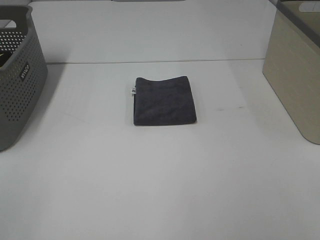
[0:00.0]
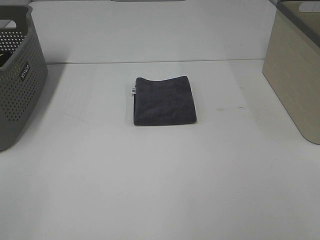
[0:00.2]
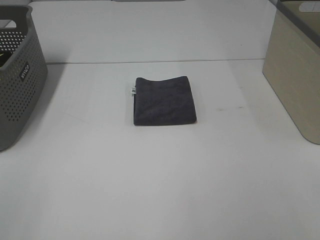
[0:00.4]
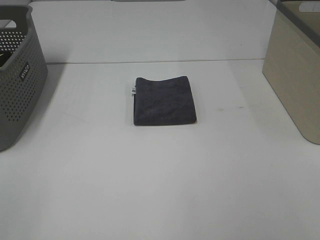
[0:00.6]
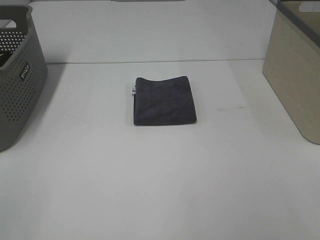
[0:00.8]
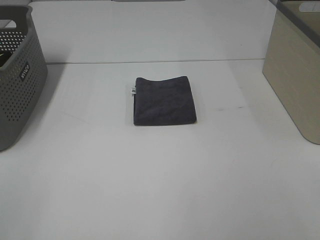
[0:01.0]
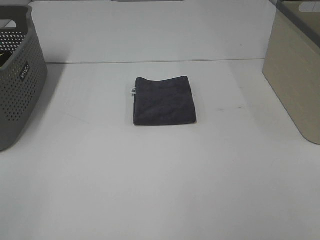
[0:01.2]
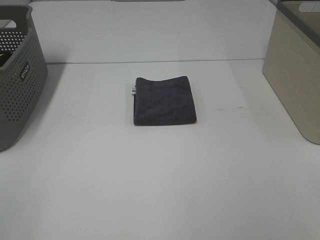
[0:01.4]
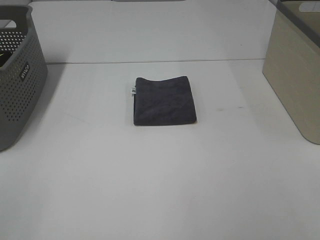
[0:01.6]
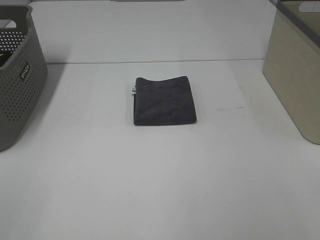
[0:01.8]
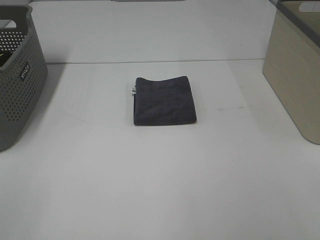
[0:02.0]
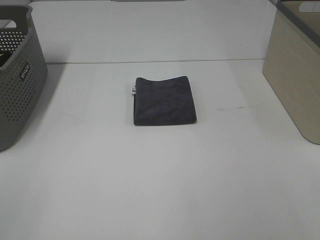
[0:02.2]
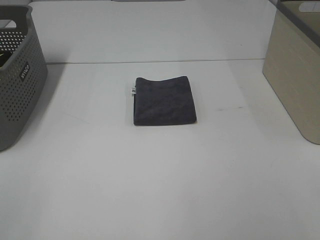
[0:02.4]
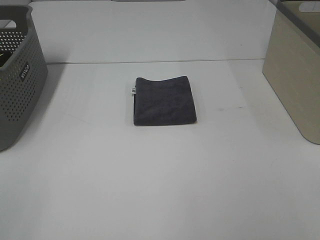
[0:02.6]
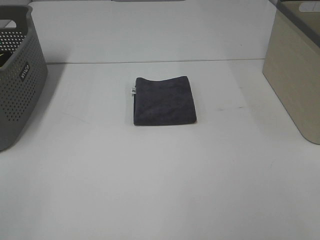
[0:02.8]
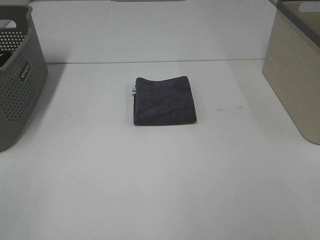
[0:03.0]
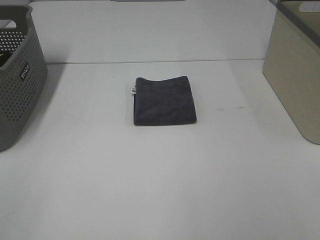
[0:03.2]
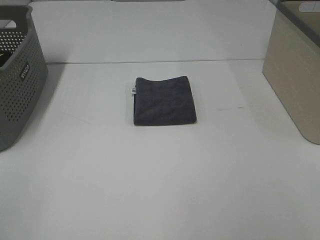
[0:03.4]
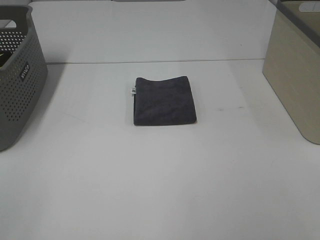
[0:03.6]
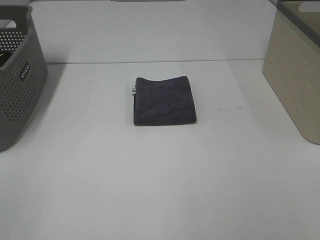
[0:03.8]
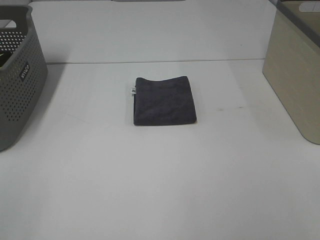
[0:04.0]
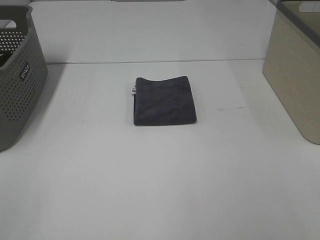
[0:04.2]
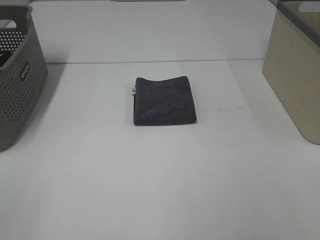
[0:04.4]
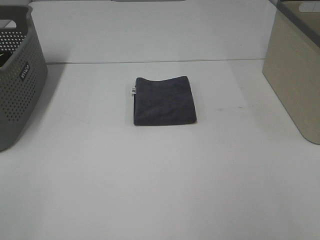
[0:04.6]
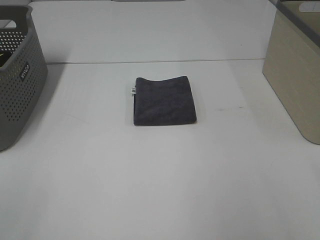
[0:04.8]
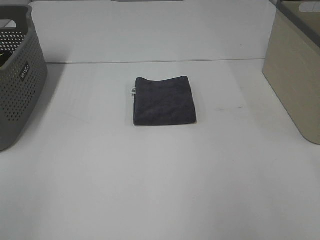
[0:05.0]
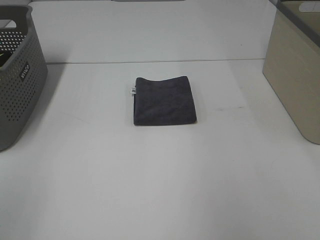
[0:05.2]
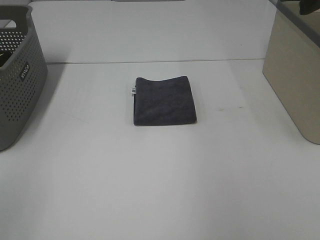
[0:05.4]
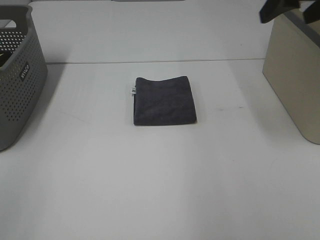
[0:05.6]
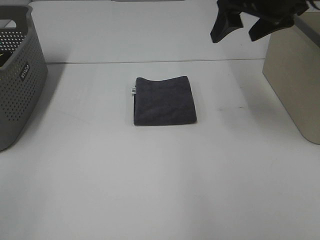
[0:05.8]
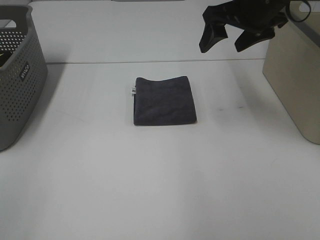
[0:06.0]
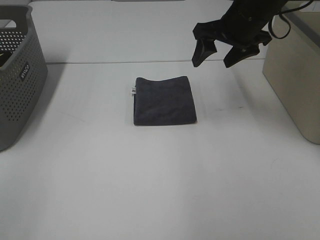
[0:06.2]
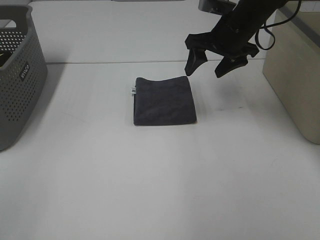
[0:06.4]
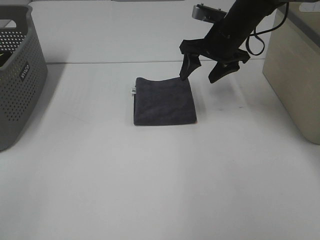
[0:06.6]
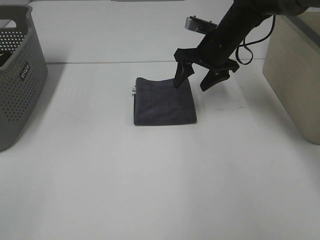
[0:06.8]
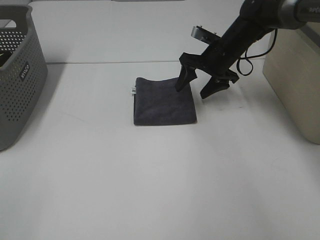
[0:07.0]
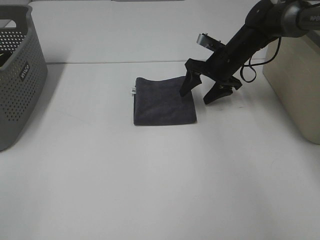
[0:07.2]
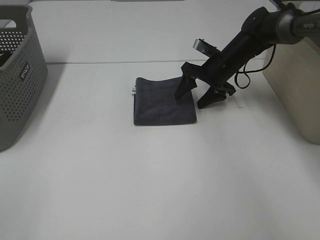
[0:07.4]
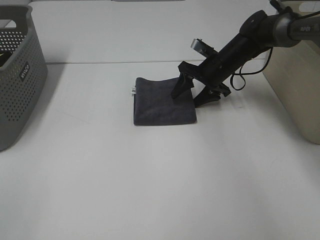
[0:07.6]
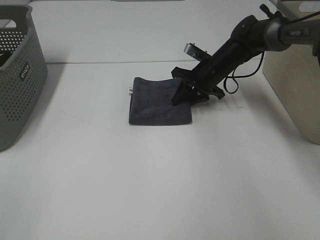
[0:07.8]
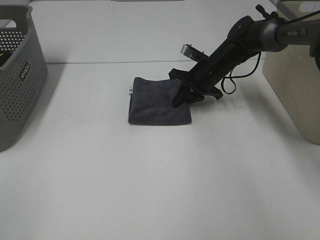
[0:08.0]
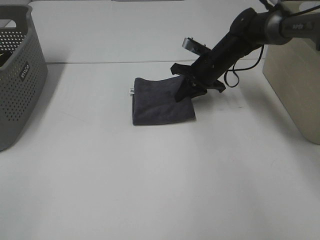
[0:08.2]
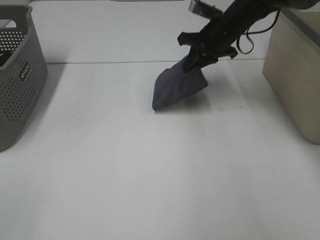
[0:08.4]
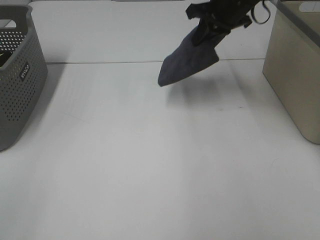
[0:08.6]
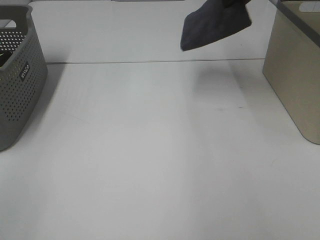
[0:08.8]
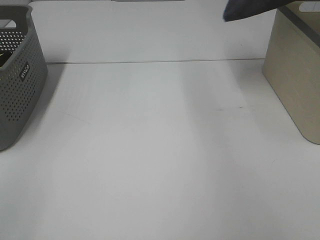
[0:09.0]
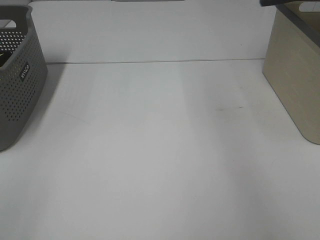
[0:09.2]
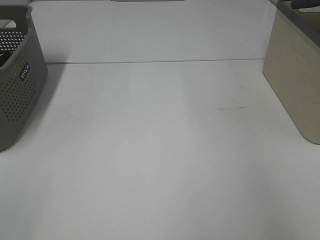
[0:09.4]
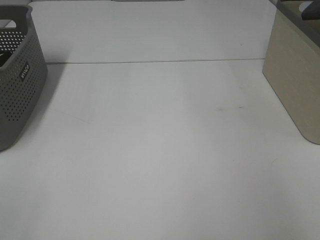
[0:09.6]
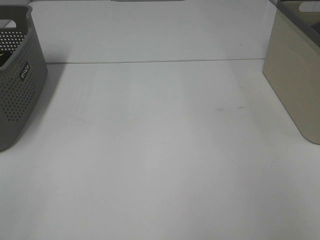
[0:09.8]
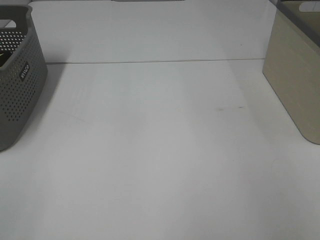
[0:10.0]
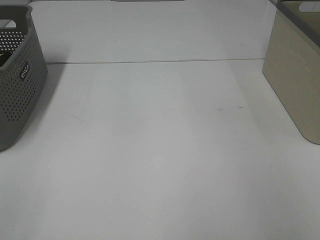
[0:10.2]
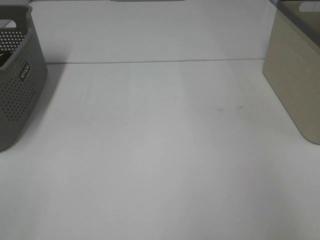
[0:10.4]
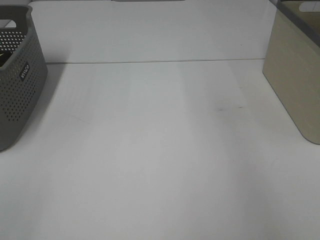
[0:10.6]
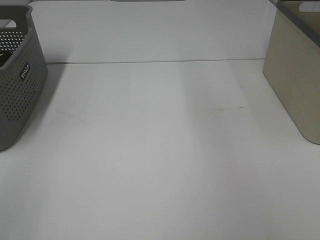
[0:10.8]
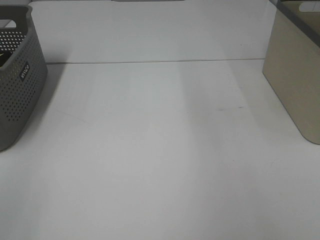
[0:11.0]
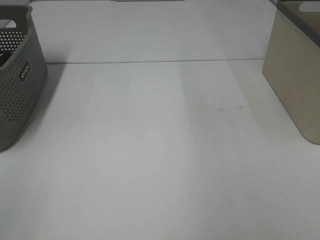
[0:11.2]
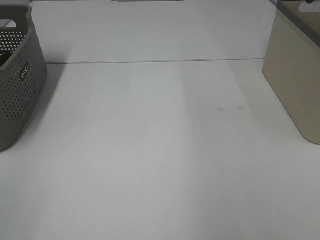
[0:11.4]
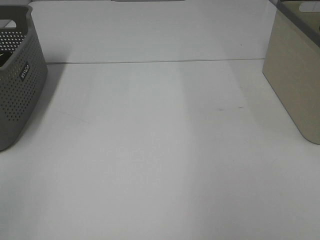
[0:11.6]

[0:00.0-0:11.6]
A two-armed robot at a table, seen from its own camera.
Step, 0:00.0 to 0:08.2: Right hand: grab the folded grey towel.
Step, 0:08.4 to 0:10.0: Right hand: place the grey towel in right basket.
0:00.0 to 0:04.4: Both grippers stay put.
0:04.4 to 0:05.8: The right gripper goes some 35 cm forward.
0:05.8 to 0:07.2: The right gripper is displaced downward and forward by about 20 cm.
0:07.2 to 0:08.8: The right gripper heads upward, covering roughly 20 cm, and closes.
0:08.8 to 0:10.2: The right gripper goes roughly 20 cm to the right, and opens up.

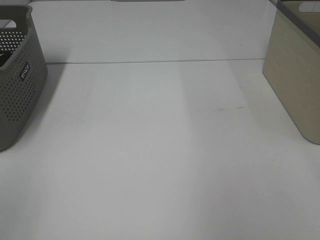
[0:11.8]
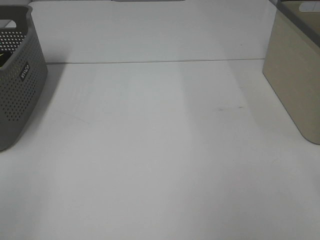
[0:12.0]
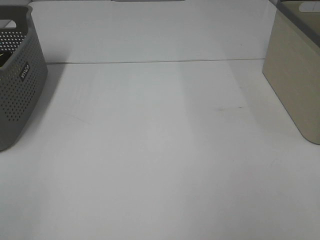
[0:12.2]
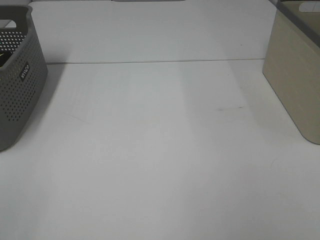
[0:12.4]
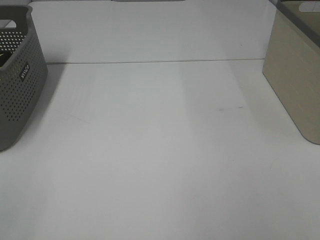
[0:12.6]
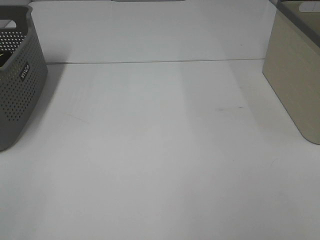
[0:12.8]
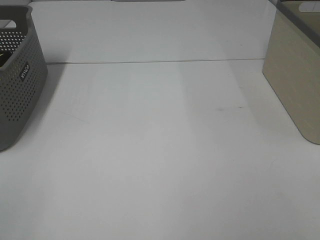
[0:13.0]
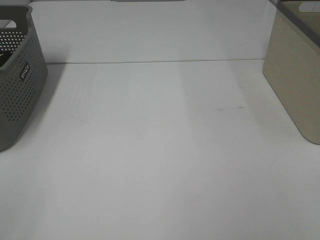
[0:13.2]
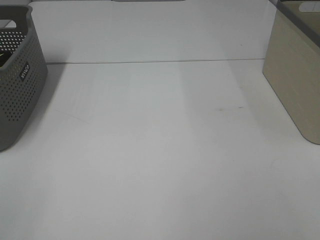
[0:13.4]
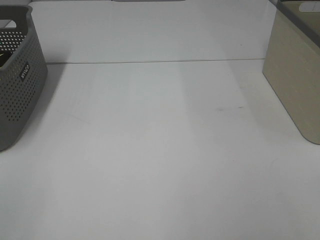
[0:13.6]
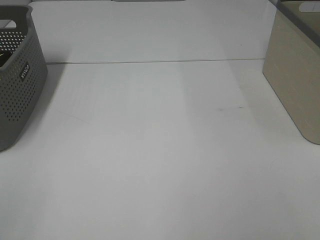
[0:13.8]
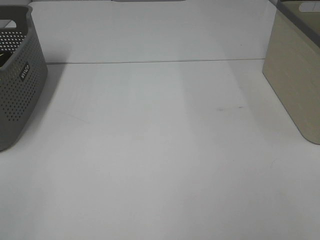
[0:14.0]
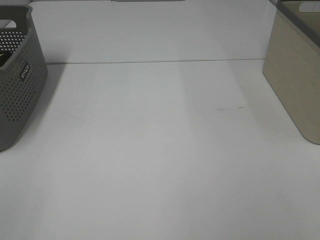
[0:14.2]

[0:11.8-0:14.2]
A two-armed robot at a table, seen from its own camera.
0:13.0 to 0:14.2: Both grippers stay put.

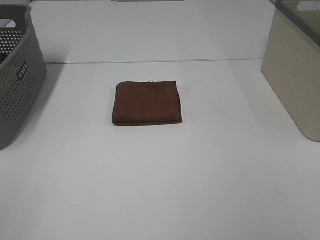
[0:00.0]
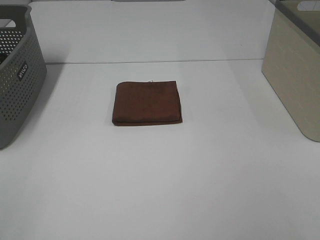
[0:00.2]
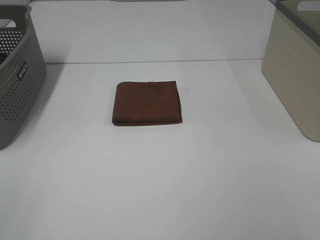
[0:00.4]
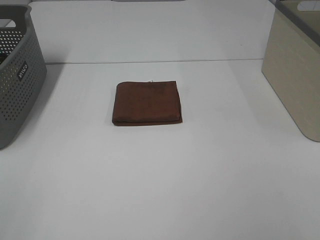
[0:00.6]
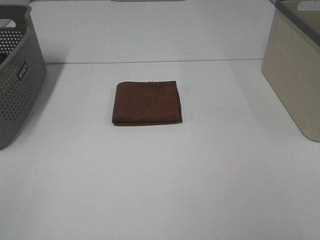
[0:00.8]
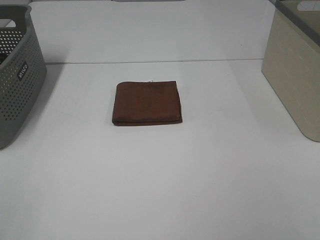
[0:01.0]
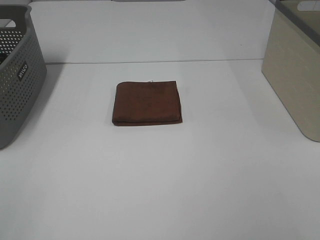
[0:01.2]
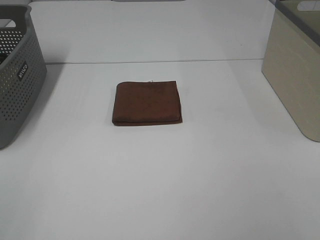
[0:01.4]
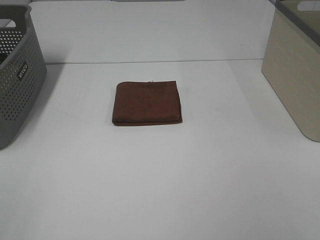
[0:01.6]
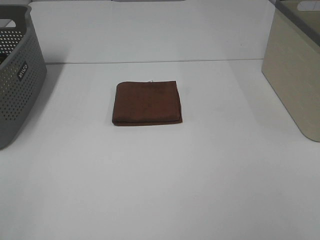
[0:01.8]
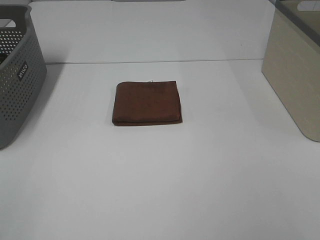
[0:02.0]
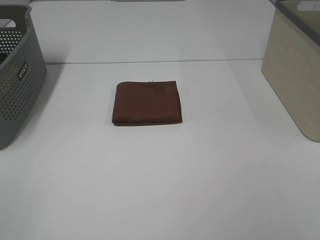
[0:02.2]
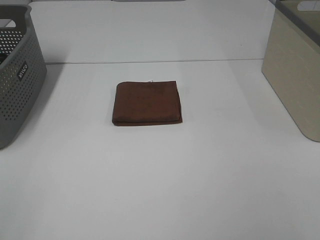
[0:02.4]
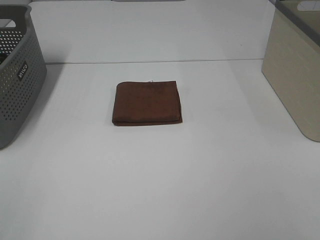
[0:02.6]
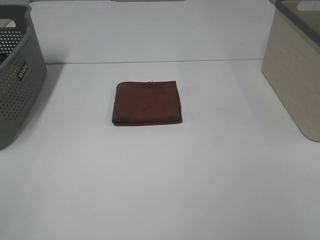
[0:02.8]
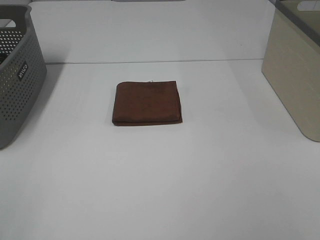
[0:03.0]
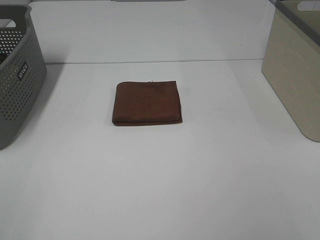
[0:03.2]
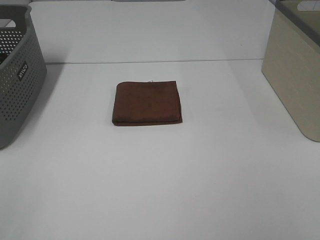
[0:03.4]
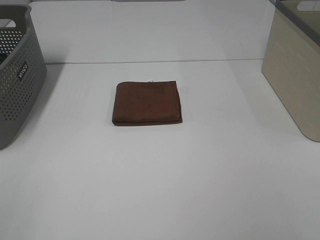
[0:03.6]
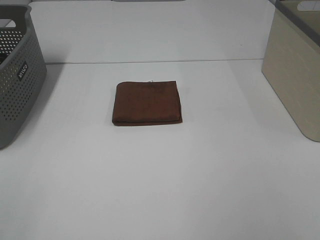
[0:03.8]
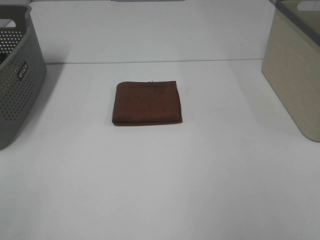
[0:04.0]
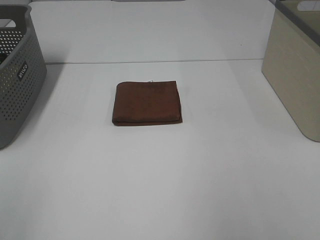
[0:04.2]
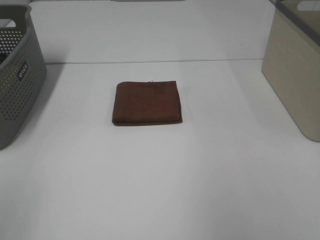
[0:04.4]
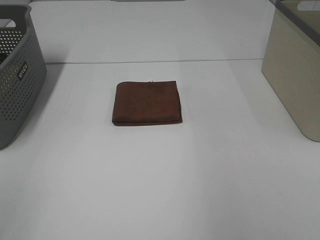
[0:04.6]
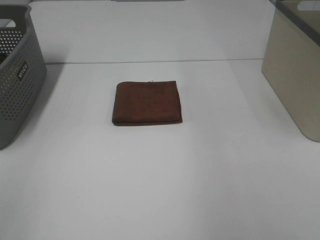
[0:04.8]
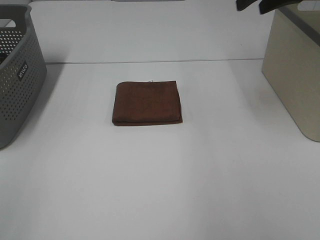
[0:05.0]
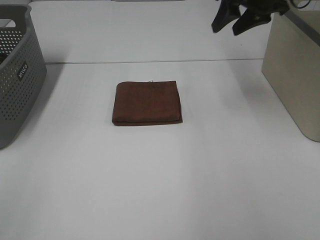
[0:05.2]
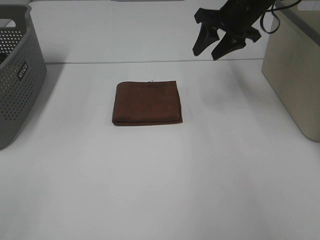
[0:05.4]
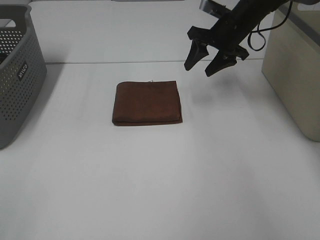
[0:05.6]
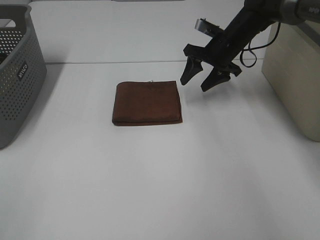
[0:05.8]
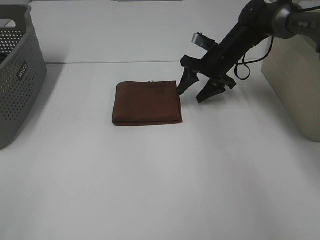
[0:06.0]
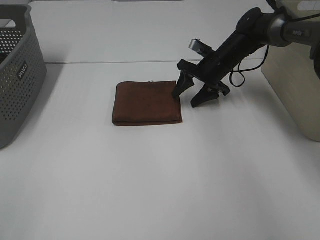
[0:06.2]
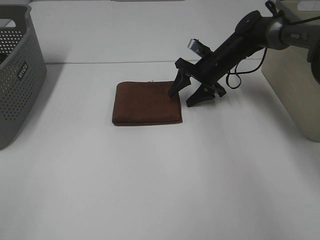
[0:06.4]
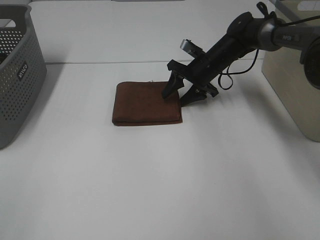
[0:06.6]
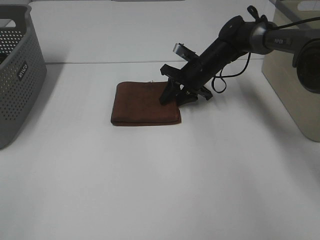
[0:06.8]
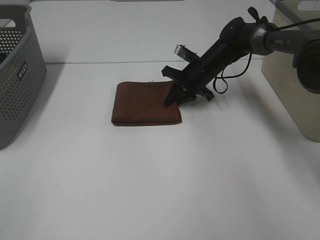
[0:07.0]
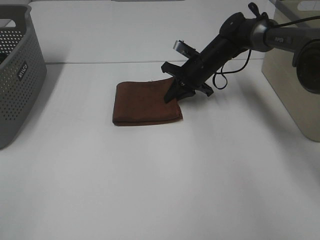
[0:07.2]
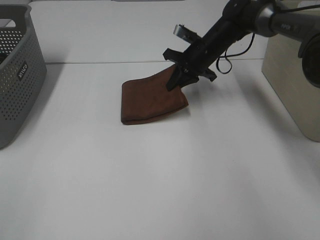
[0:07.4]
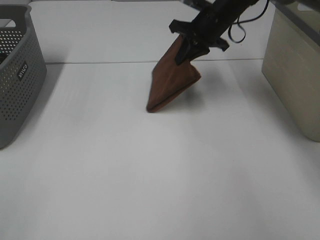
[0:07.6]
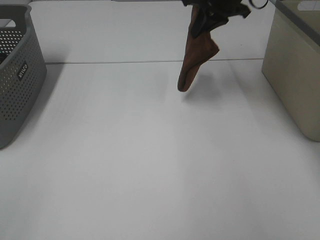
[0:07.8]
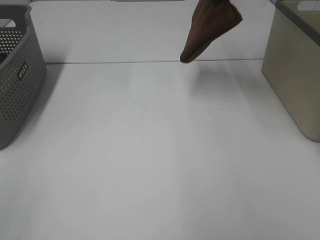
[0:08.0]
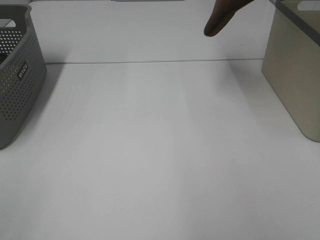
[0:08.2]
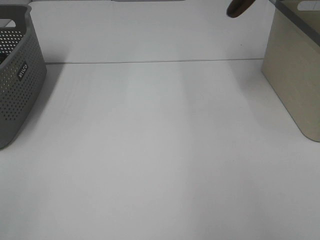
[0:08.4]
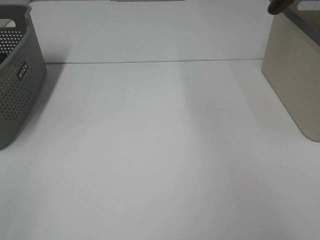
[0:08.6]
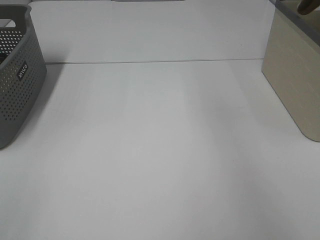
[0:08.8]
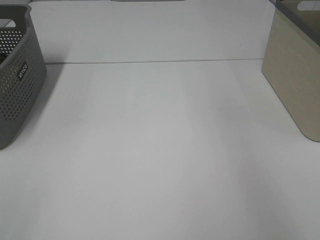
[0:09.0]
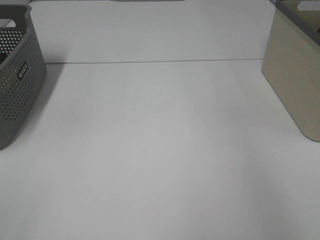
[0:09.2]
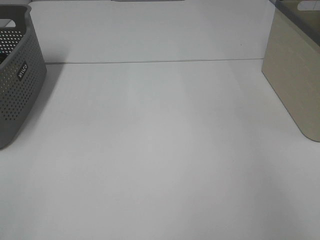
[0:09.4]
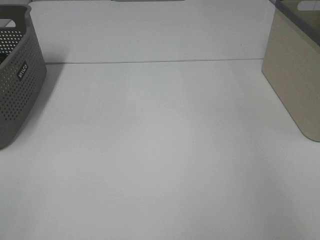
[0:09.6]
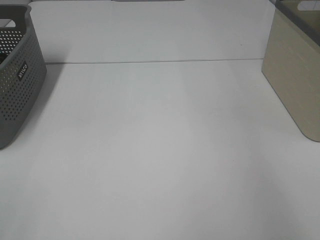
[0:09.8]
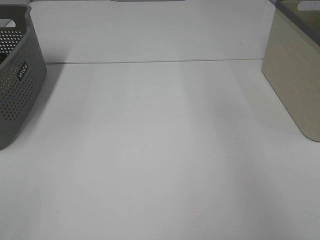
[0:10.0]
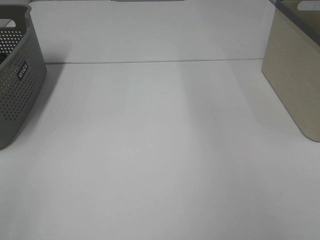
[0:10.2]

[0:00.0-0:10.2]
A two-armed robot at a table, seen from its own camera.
Step, 0:00.0 to 0:07.0: Right hand: grab the folded brown towel.
Step, 0:07.2 to 0:09.6: Right hand: place the brown towel in right basket.
0:00.0 to 0:03.0: Both grippers stay about where they are.
0:04.4 to 0:05.8: The right gripper travels forward, downward and to the left by approximately 40 cm.
0:05.8 to 0:07.2: The right gripper moves about 5 cm, and closes its fingers.
0:07.2 to 0:08.8: The right gripper moves upward and to the right, roughly 40 cm.
